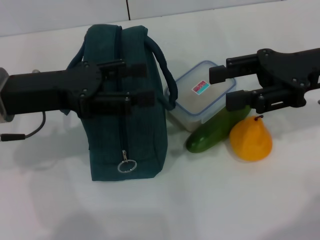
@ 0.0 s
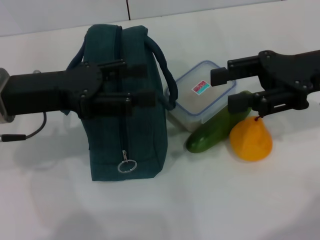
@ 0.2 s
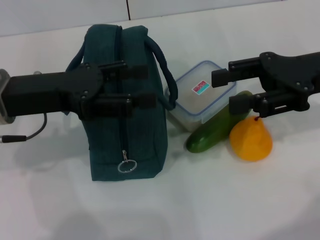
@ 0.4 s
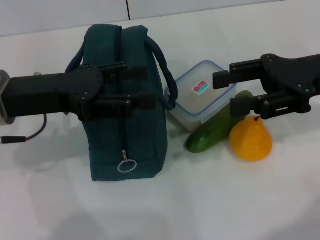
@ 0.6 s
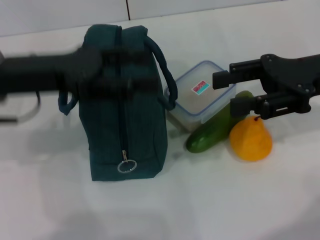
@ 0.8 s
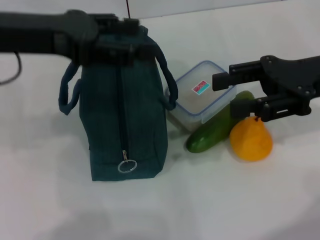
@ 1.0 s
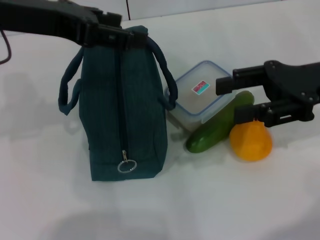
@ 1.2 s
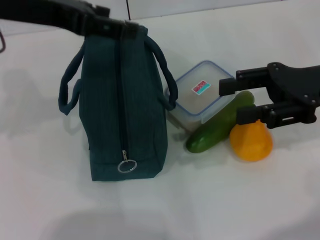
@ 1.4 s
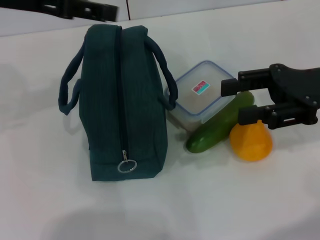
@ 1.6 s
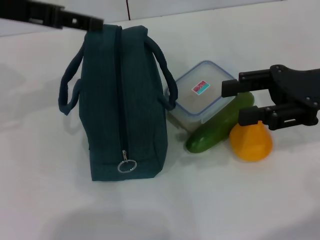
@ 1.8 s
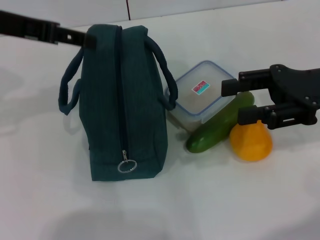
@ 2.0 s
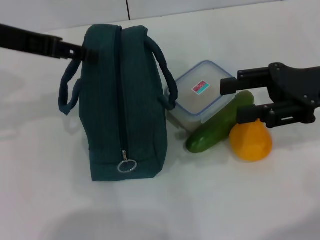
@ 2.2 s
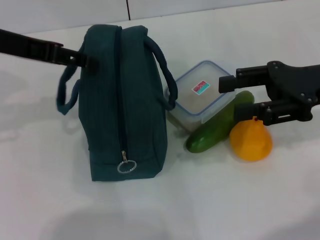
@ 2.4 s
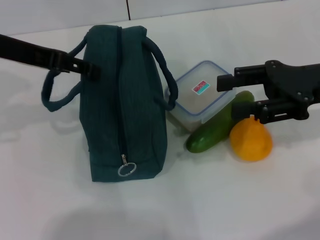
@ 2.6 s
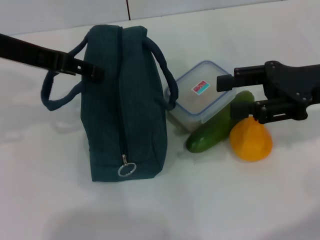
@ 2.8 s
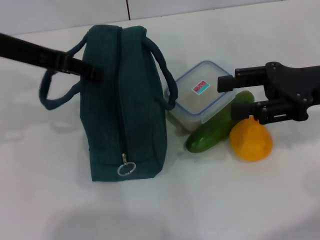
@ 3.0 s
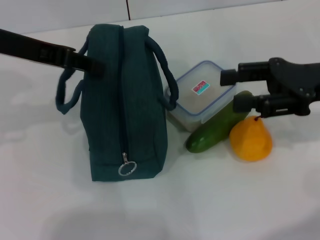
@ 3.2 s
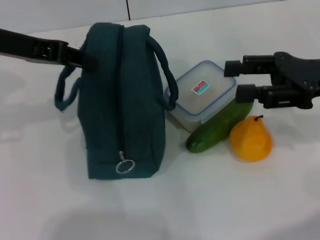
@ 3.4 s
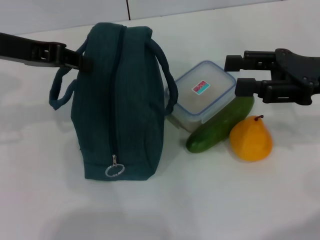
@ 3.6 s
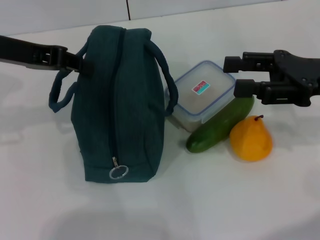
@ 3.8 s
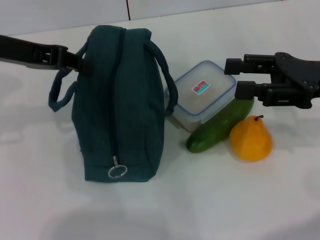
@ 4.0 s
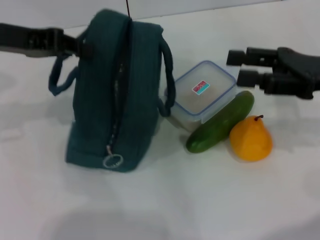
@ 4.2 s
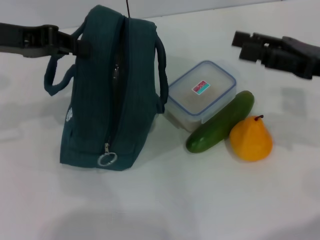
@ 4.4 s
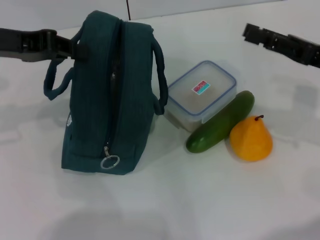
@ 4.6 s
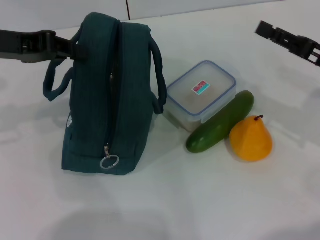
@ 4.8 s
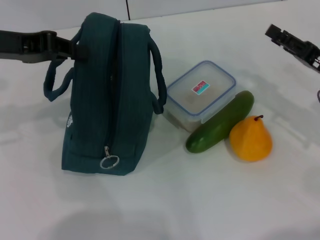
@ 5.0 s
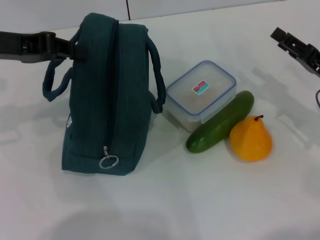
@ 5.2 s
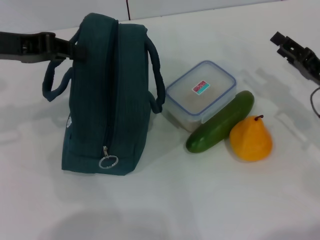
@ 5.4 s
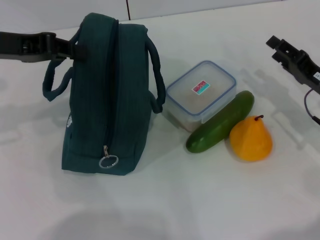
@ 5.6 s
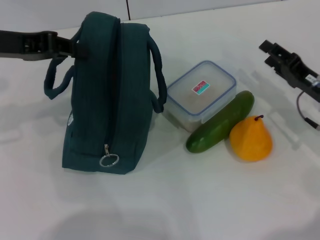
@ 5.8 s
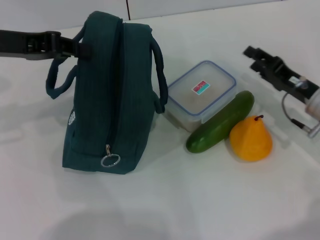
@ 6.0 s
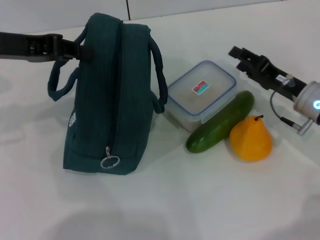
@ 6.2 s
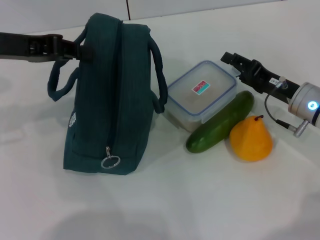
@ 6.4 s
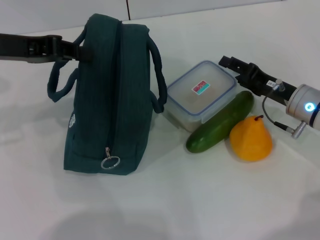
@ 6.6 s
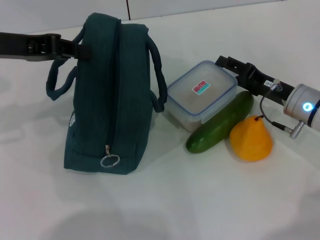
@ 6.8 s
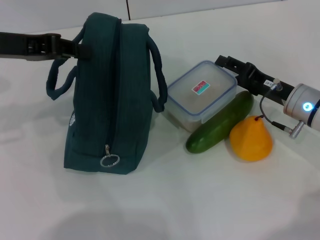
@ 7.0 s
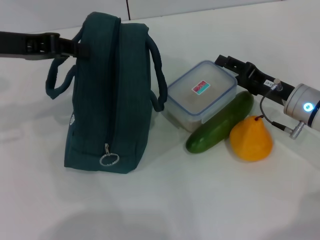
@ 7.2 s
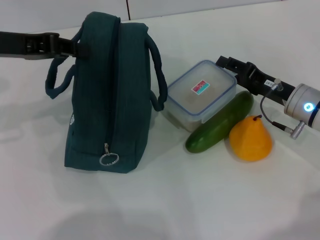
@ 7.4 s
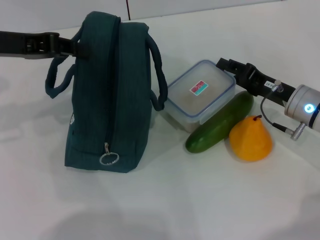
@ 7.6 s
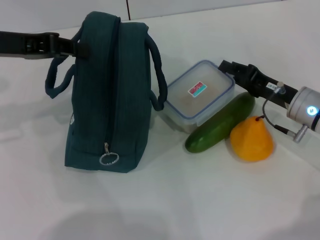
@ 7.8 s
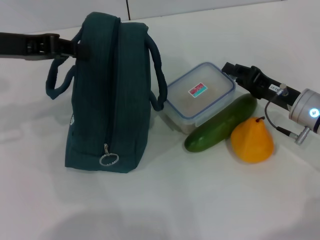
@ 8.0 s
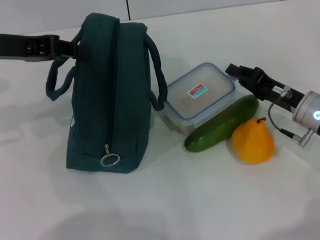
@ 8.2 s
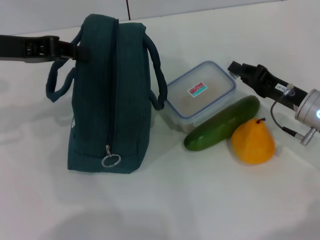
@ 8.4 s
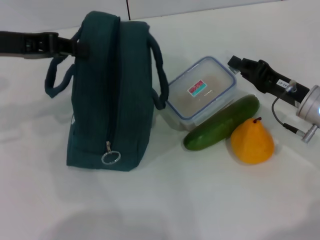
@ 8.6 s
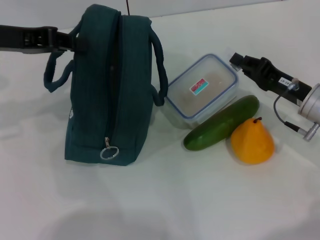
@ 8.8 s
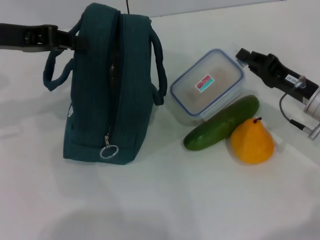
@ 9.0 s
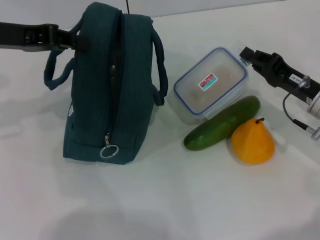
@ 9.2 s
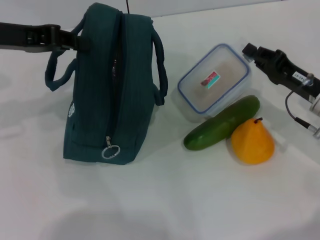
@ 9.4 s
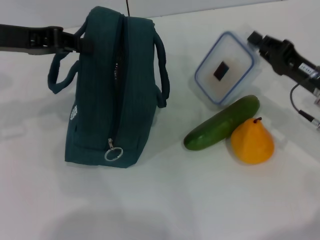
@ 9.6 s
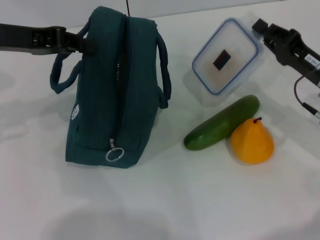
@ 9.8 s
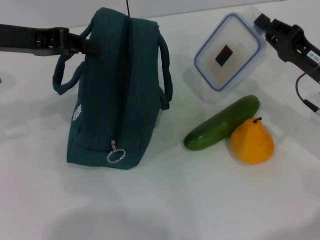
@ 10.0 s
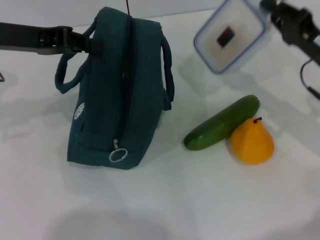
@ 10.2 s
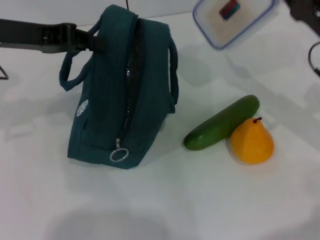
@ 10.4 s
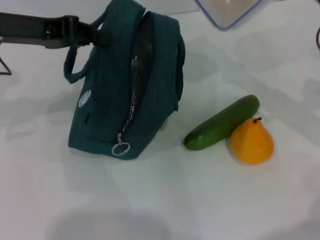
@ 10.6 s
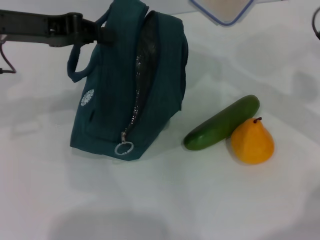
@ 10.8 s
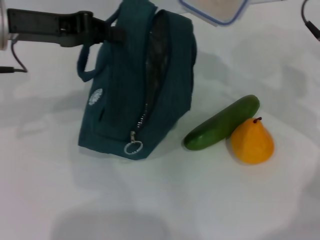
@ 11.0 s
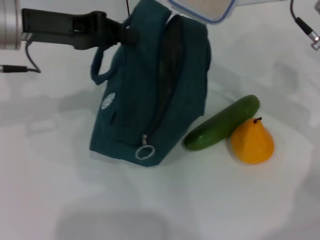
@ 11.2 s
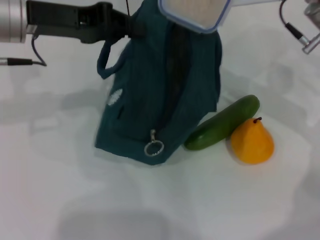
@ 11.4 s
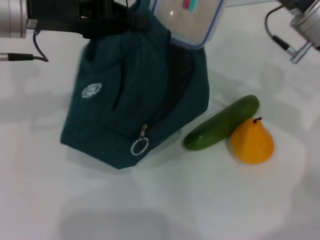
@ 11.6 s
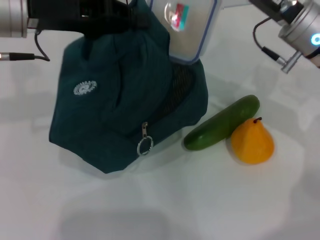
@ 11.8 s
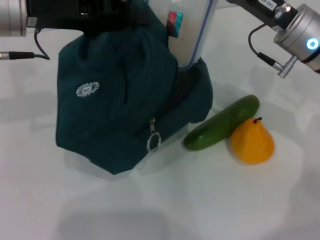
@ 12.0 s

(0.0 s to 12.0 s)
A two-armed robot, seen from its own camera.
Step, 0.0 s - 5.0 s: Hold the lunch bag with your left hand.
Step, 5.2 s - 8.8 s: Pick up the lunch box with your right hand.
0.0 s - 1.6 s: The left gripper is displaced upward by approximately 10 cm.
1.6 s - 3.0 s: The grippers move only a little.
3.0 s - 4.4 s: The left gripper closes.
4.4 s - 6.0 s: The right gripper heads downward, covering some 10 cm.
6.0 s - 7.6 s: There are only small adjustments of the grippers.
7.6 s - 9.0 s: The right gripper closes its fingers.
9.0 s - 10.4 s: The right gripper shifts approximately 5 cm upward.
10.4 s - 12.0 s: The right gripper travels to the left by some 5 cm.

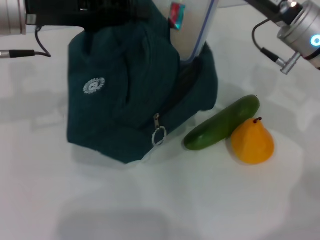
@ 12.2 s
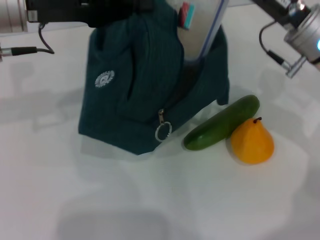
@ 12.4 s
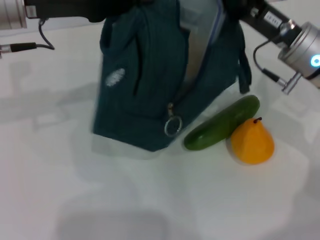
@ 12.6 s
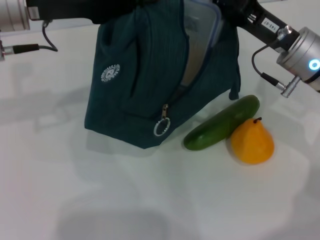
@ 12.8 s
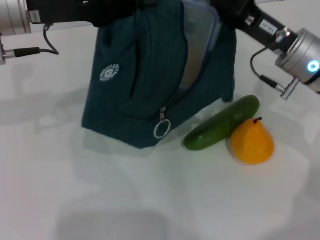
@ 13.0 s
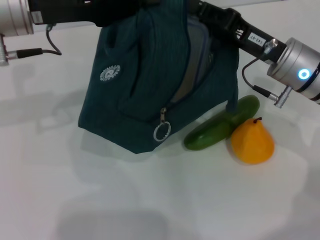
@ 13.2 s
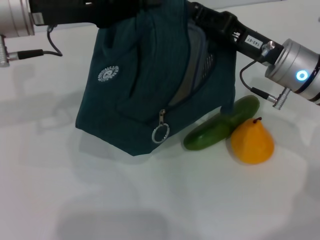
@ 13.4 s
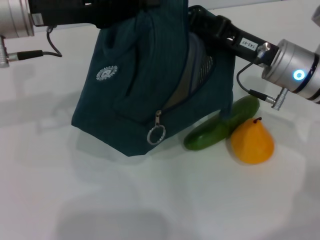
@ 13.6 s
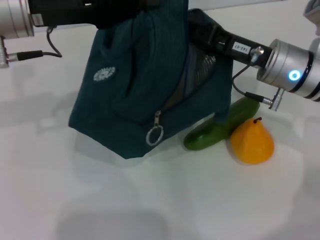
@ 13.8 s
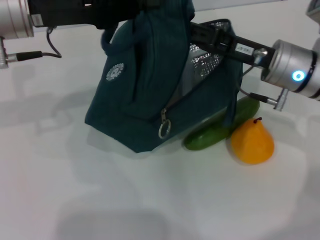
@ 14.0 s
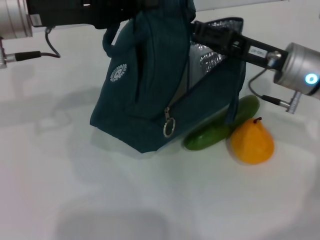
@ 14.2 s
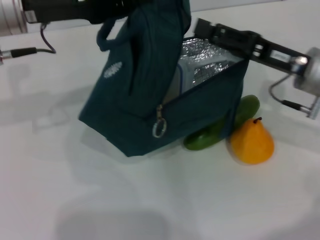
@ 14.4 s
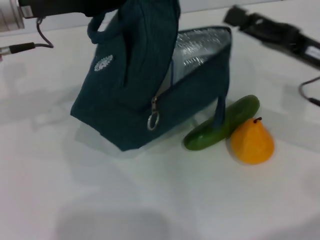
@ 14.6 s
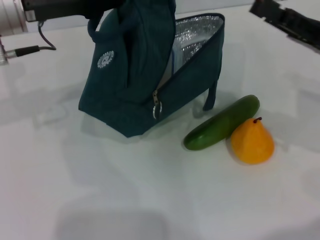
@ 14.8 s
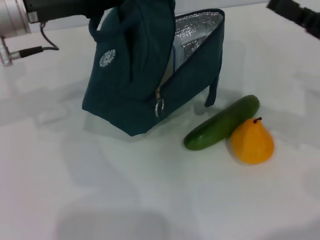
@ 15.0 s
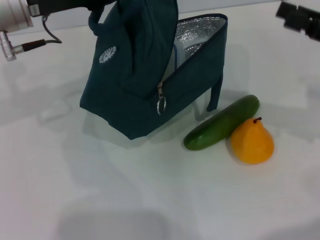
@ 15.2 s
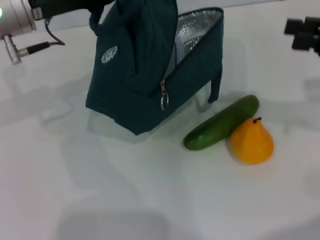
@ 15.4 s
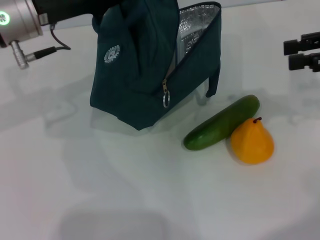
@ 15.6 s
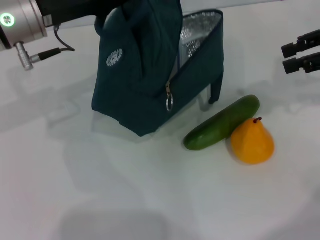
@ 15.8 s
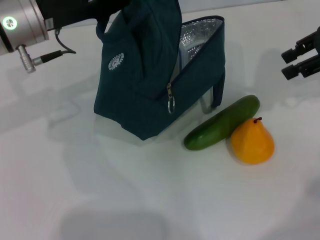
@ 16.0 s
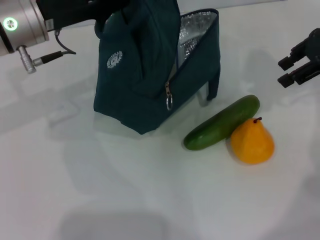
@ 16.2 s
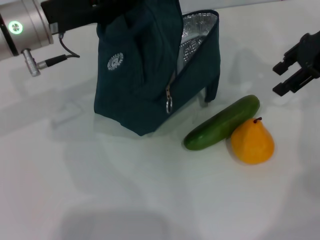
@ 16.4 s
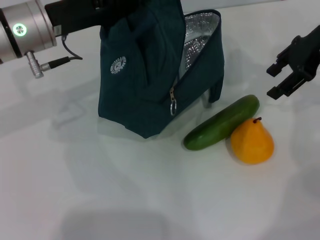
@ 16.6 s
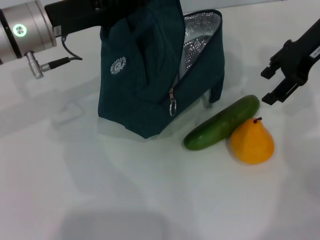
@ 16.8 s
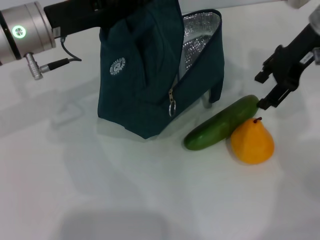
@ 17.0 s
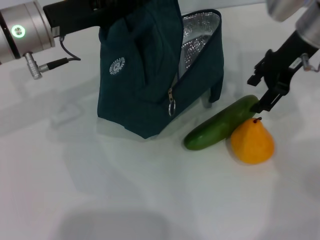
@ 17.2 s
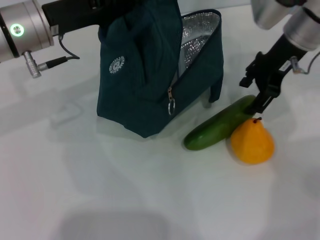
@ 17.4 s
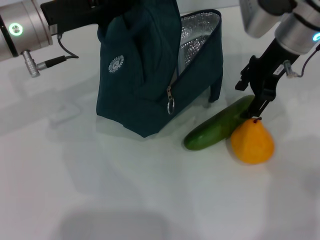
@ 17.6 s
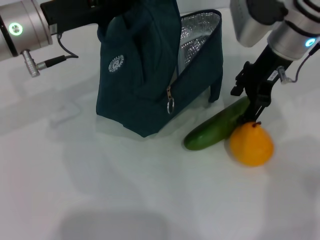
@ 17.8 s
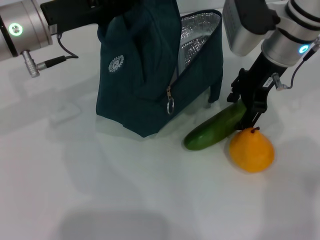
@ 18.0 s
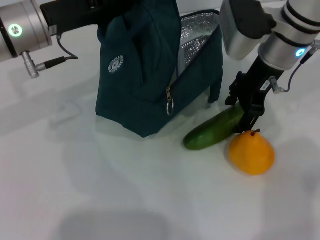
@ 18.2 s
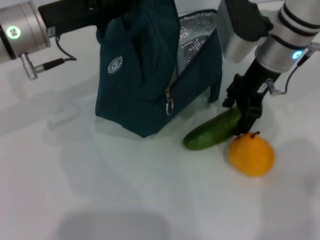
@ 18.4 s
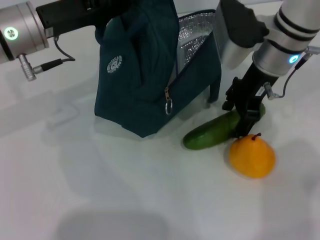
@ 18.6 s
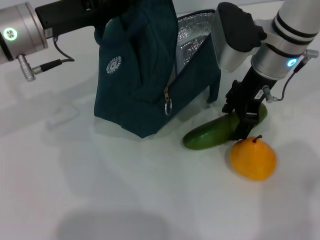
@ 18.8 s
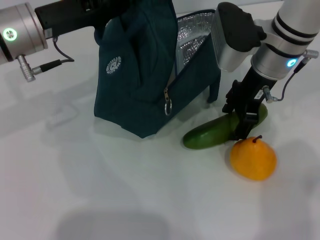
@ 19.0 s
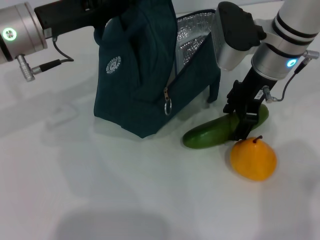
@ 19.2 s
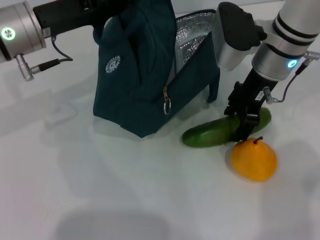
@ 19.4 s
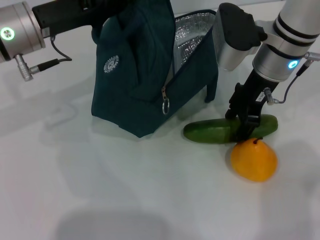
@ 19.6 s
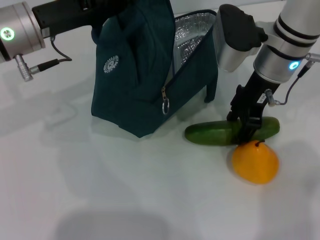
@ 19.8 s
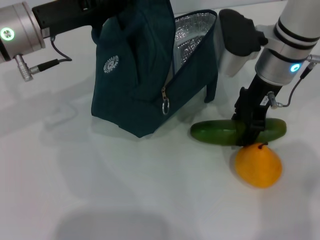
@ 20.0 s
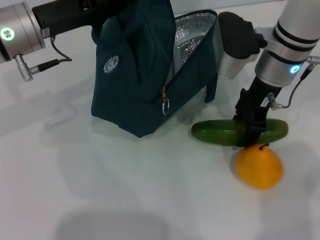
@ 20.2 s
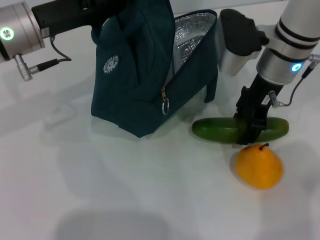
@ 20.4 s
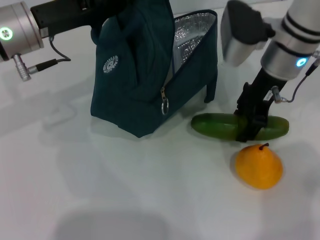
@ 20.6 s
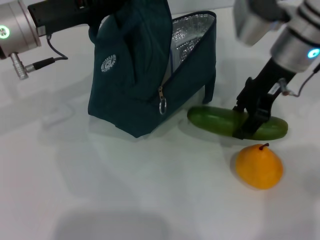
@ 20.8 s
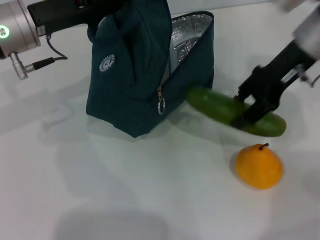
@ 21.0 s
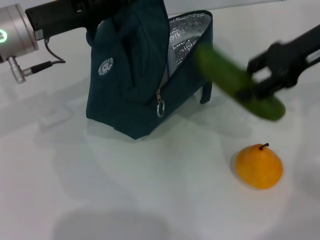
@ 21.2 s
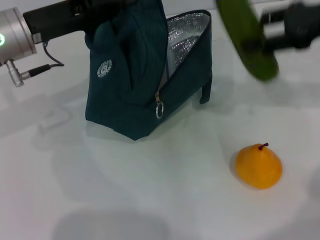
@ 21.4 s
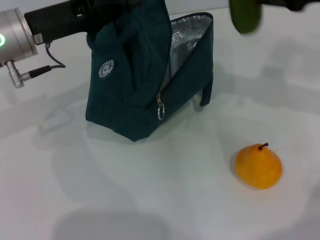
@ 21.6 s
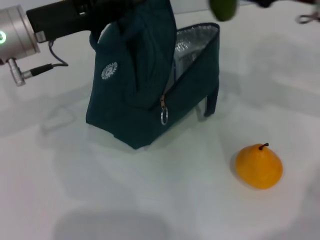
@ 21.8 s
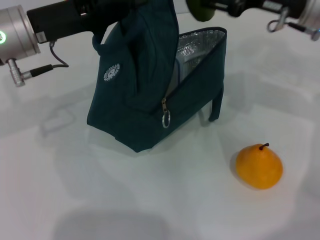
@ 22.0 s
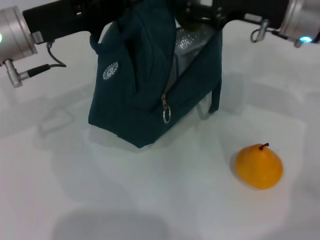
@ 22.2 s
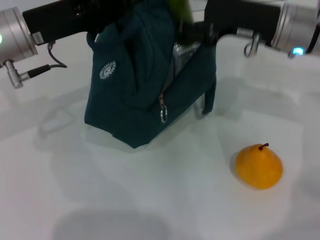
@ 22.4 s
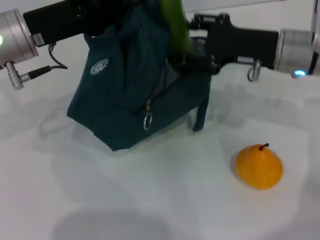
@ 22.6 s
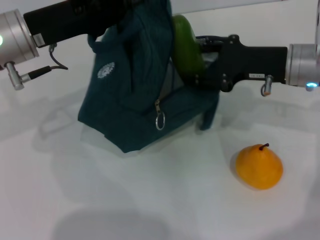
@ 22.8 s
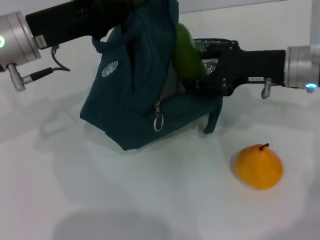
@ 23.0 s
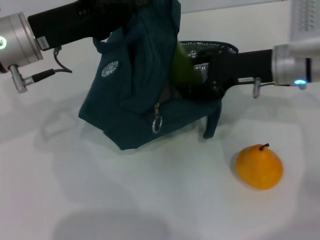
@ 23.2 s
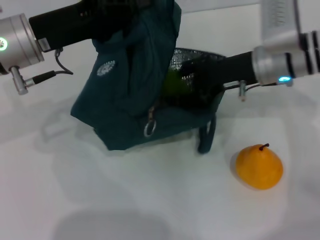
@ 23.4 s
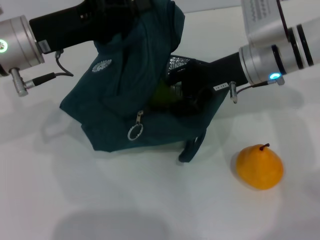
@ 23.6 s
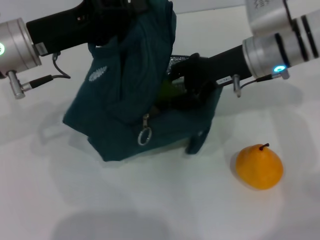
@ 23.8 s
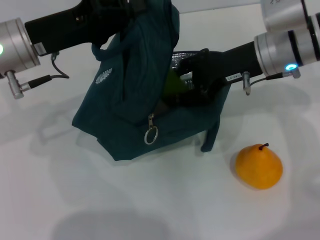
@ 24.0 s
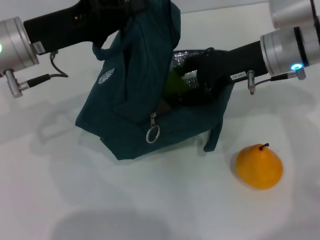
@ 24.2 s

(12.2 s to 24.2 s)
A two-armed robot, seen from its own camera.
Step, 12.2 s - 14.6 s: Place the lunch box into the lunch bag with your right hand.
Step, 14.8 s - 20.0 s: Pick up the cucumber with your right hand.
12.2 s - 13.8 s: There are only small adjustments of the grippers.
13.8 s - 15.2 s: The right gripper travels to the right by approximately 15 cm, and opens.
15.2 s - 16.6 s: The right gripper goes about 15 cm forward and upward.
16.6 s - 18.2 s: The right gripper shifts roughly 10 cm to the left.
18.2 s - 19.8 s: The grippers move only a little.
19.8 s - 21.2 s: The right gripper travels to the right and upward by about 10 cm.
21.2 s - 22.6 s: The right gripper shifts roughly 10 cm downward.
